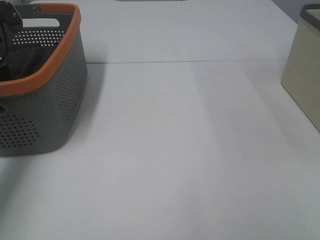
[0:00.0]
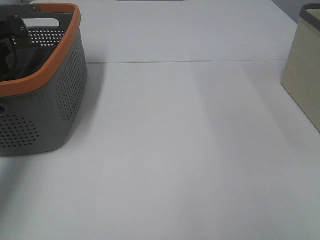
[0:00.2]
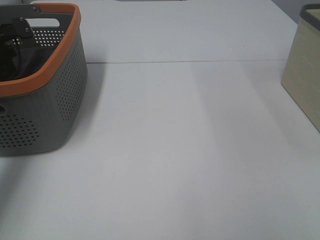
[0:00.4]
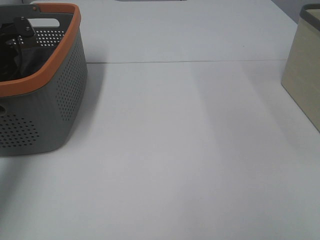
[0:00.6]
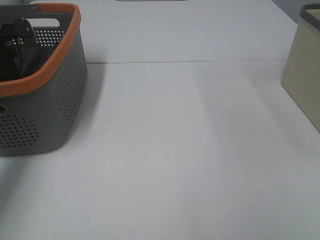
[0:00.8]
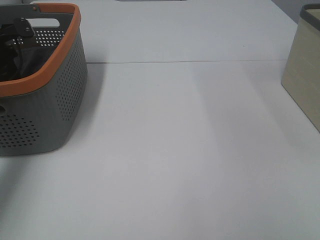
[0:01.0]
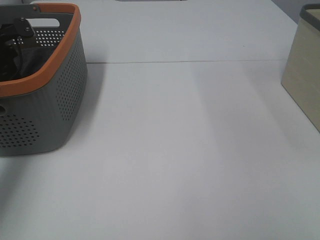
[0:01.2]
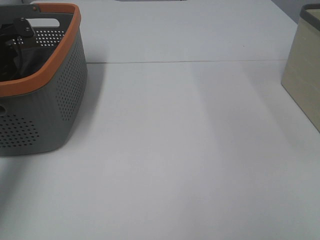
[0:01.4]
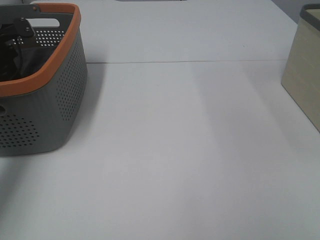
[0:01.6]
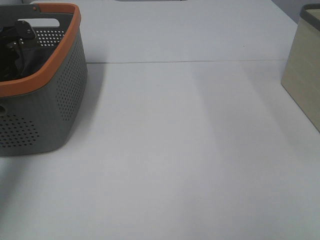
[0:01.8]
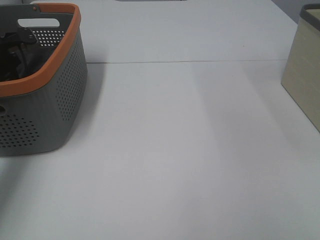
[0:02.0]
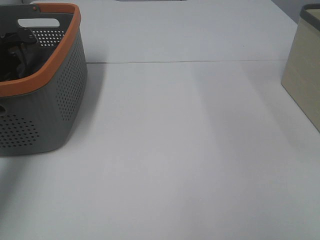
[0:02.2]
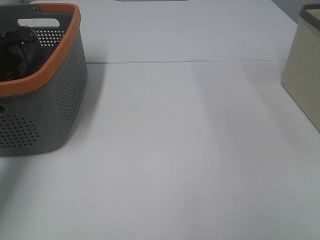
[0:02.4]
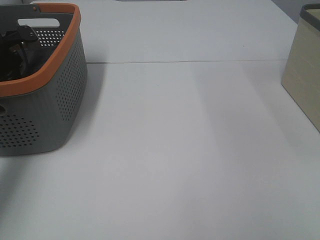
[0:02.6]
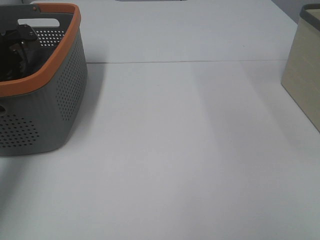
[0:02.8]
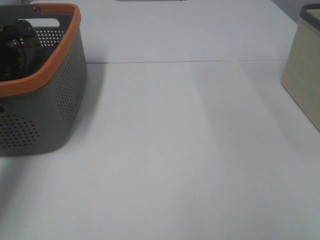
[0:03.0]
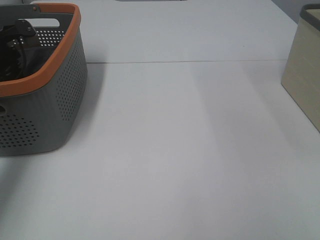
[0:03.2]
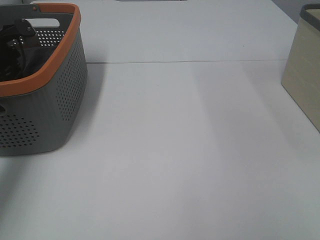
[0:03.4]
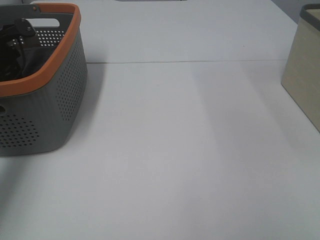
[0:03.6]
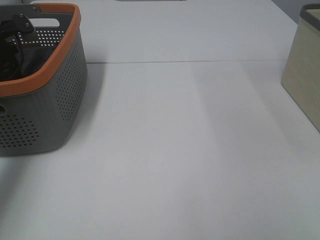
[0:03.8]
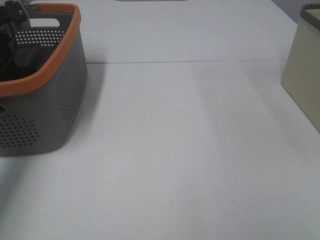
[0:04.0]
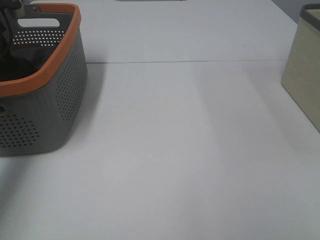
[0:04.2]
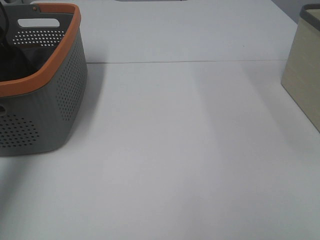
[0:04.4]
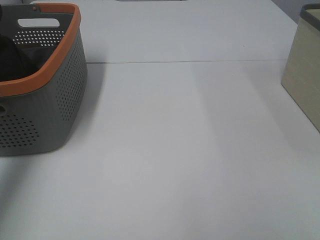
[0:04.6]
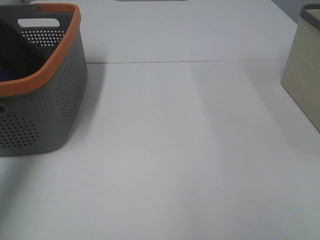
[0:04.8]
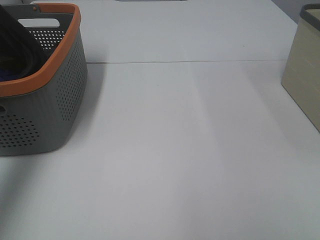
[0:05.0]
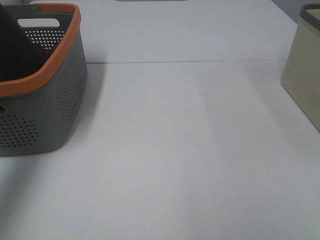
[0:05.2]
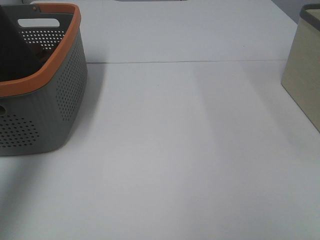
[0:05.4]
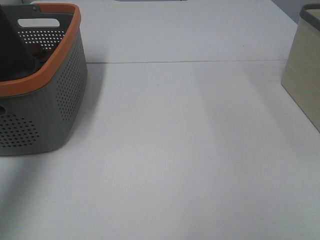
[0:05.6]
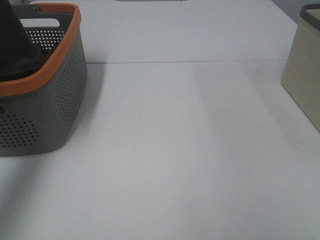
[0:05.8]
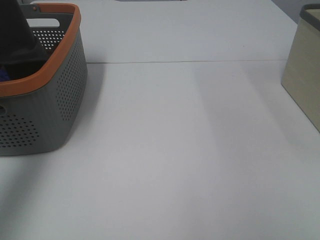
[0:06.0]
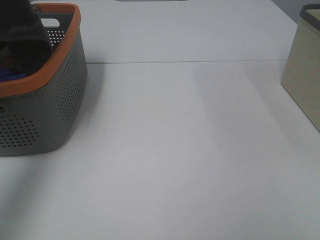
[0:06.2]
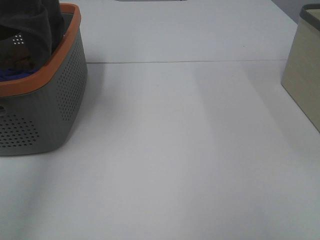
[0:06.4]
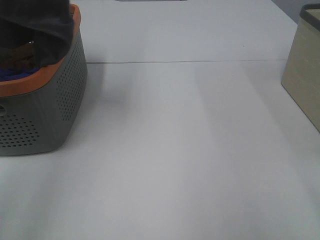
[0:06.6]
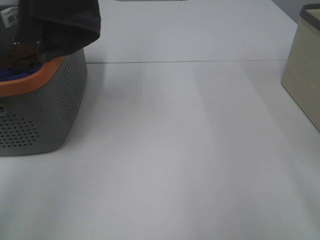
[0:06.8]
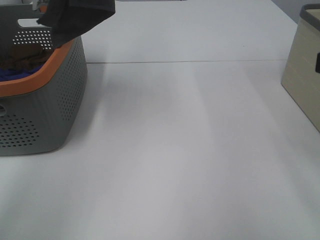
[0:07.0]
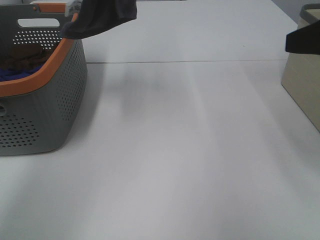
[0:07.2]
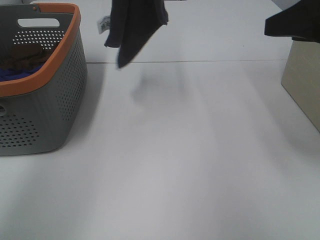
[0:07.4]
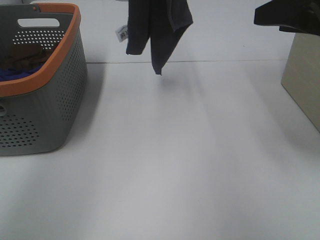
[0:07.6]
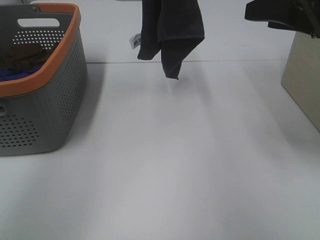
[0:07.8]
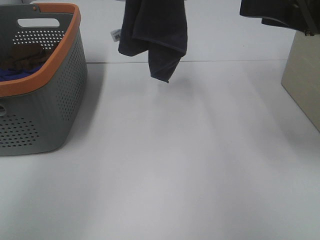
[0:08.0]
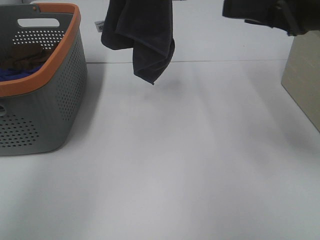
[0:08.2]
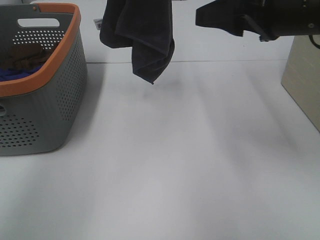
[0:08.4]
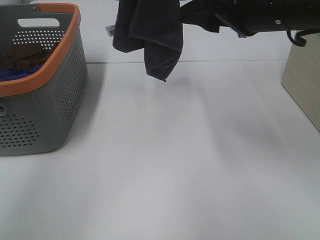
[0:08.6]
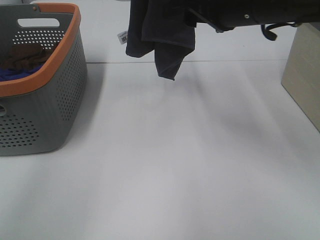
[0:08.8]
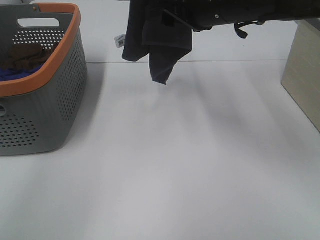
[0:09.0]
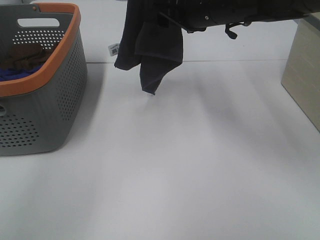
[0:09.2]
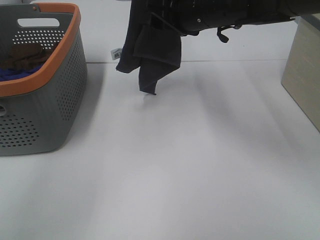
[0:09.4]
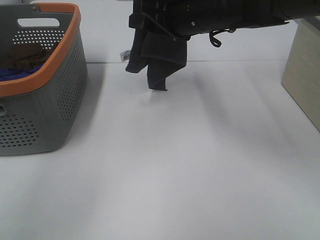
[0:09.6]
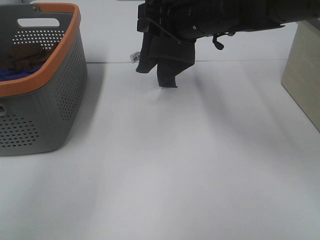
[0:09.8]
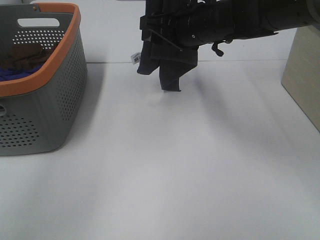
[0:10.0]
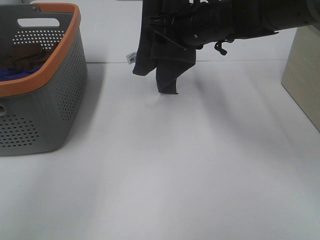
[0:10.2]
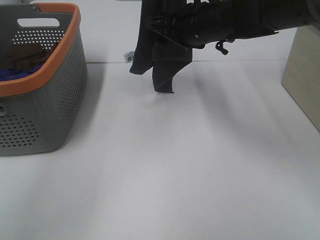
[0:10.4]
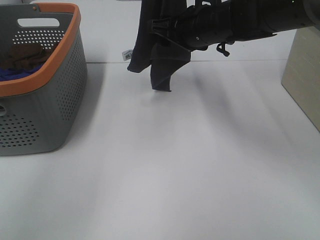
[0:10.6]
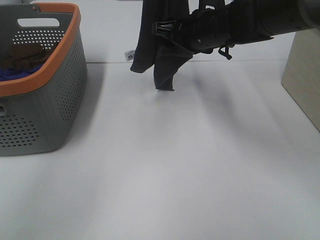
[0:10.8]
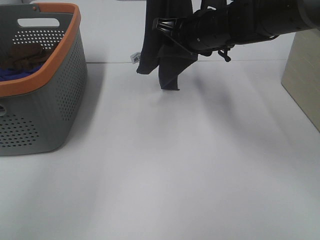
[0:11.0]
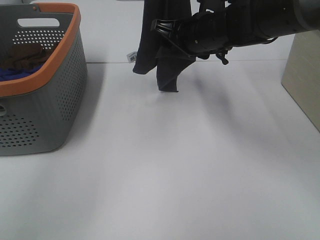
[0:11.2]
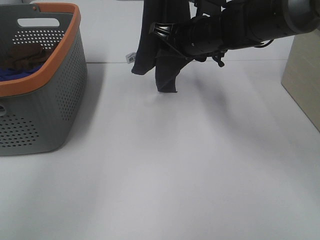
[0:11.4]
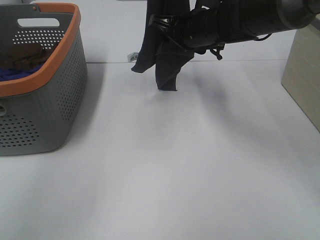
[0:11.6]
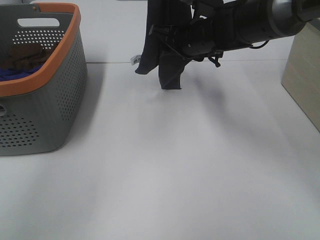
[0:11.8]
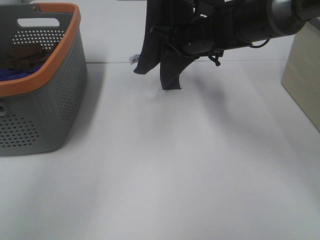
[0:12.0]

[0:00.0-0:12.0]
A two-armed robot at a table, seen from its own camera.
Task of the whole recording: Remove the towel and place it.
Step, 0:05.0 to 0:11.2: Right hand: grab a corner of the grey towel and straighten it.
0:04.4 to 0:06.0: The left gripper shifts approximately 30 cm upward and backward.
0:06.0 to 0:07.6: The left gripper heads to the right and forward, covering approximately 25 cm; the right gripper shifts some 25 cm forward.
0:07.6 to 0:09.0: The right gripper travels to the left and forward by approximately 15 cm.
0:09.0 to 0:10.4: The right gripper shifts some 5 cm downward.
0:10.4 to 0:12.0: The right gripper moves some 5 cm.

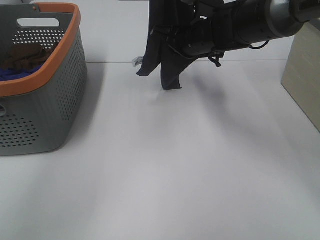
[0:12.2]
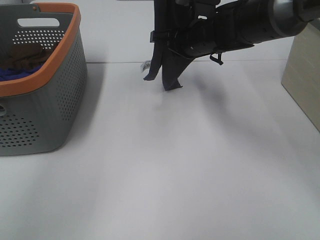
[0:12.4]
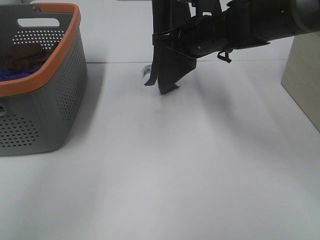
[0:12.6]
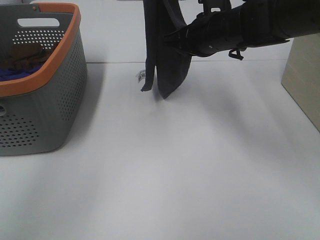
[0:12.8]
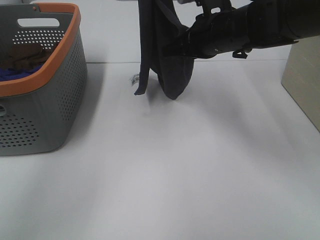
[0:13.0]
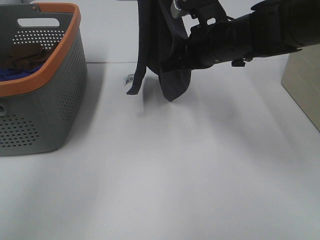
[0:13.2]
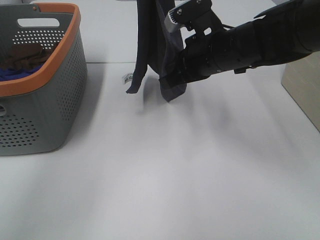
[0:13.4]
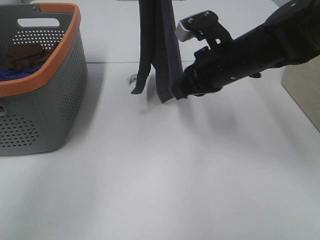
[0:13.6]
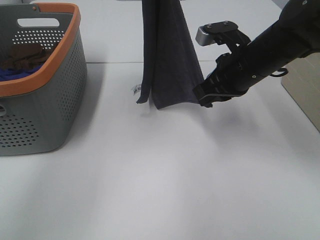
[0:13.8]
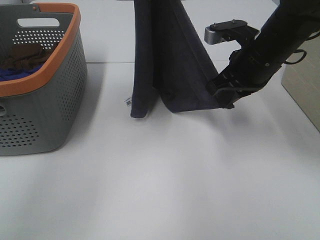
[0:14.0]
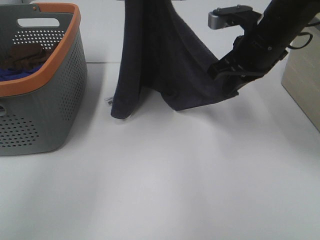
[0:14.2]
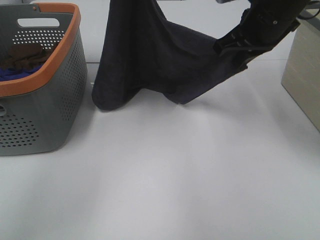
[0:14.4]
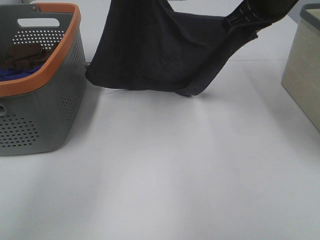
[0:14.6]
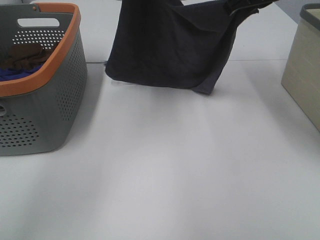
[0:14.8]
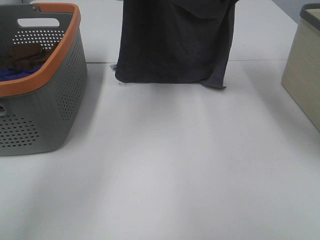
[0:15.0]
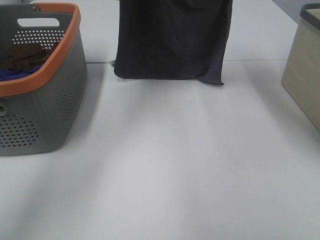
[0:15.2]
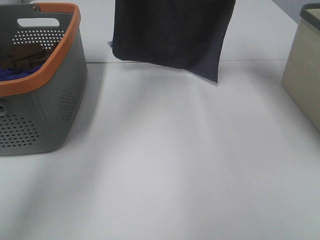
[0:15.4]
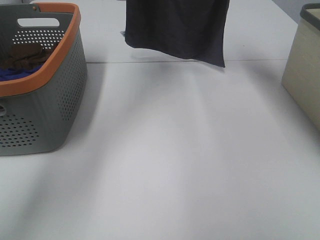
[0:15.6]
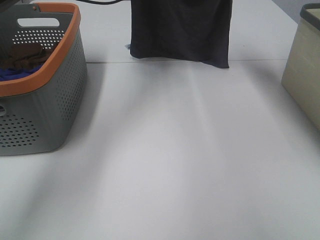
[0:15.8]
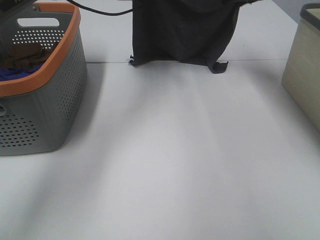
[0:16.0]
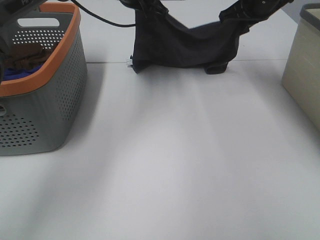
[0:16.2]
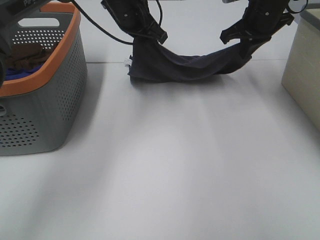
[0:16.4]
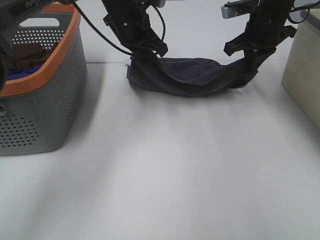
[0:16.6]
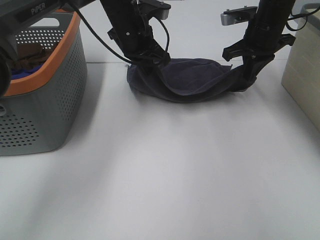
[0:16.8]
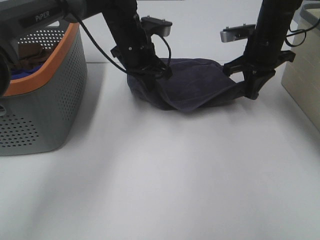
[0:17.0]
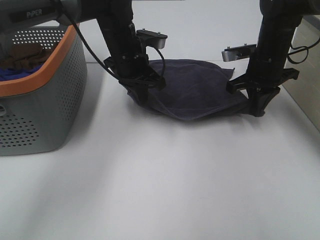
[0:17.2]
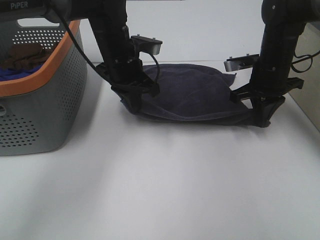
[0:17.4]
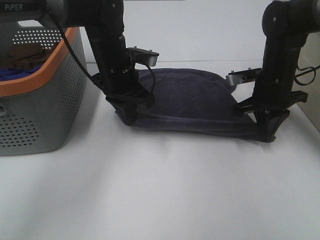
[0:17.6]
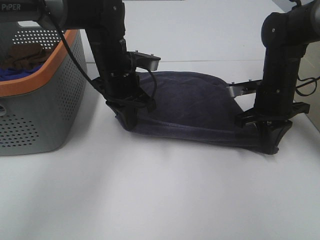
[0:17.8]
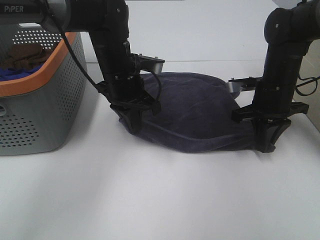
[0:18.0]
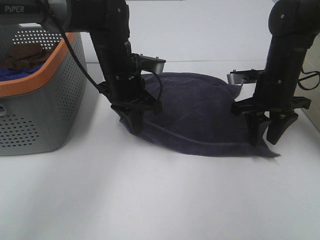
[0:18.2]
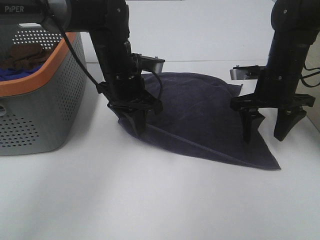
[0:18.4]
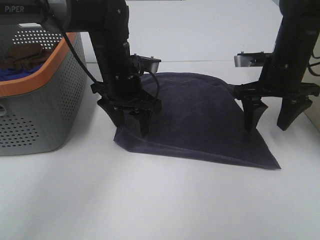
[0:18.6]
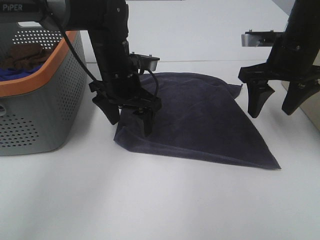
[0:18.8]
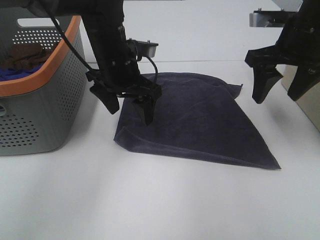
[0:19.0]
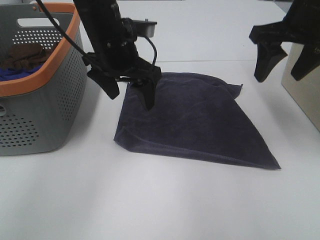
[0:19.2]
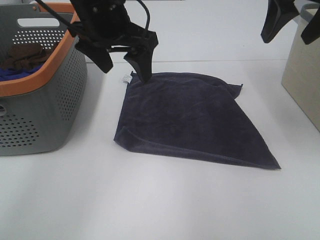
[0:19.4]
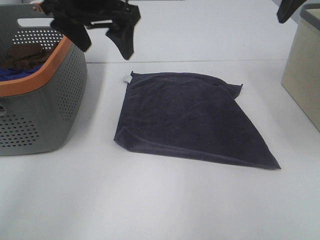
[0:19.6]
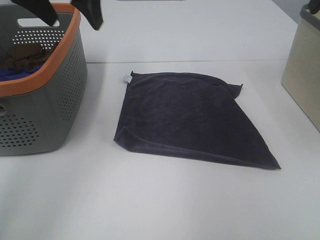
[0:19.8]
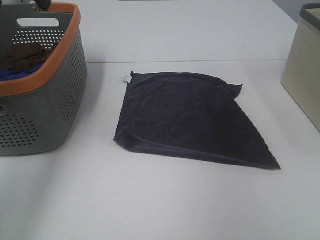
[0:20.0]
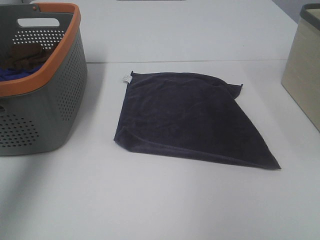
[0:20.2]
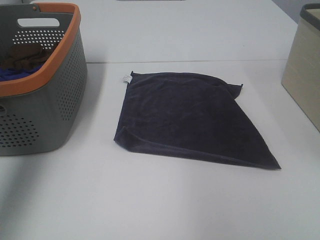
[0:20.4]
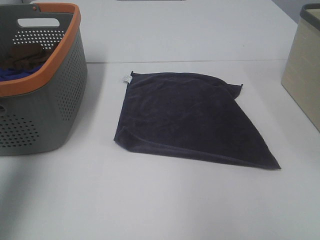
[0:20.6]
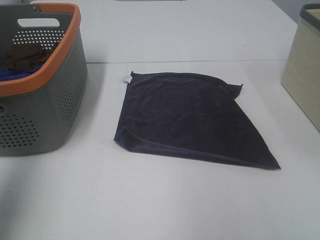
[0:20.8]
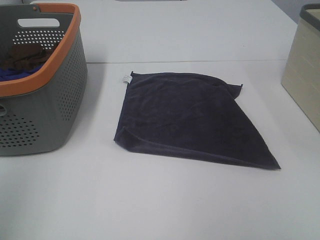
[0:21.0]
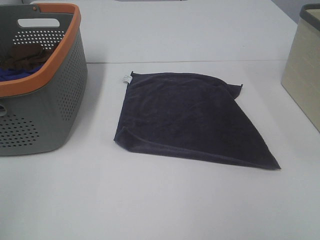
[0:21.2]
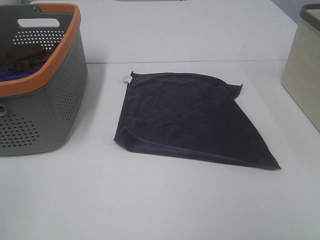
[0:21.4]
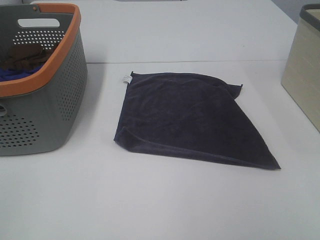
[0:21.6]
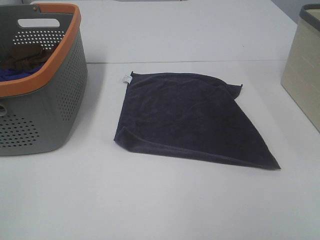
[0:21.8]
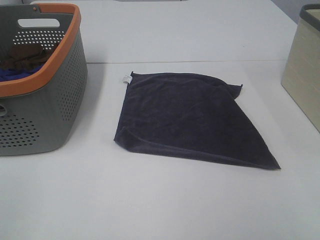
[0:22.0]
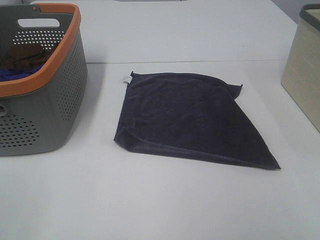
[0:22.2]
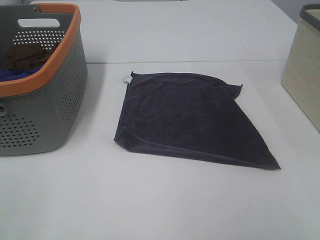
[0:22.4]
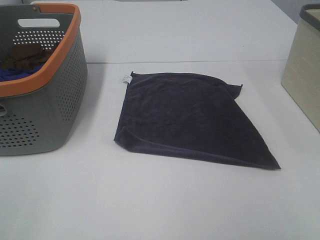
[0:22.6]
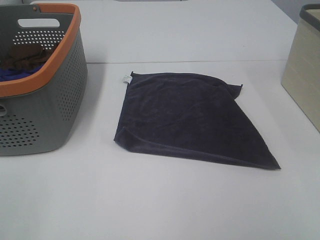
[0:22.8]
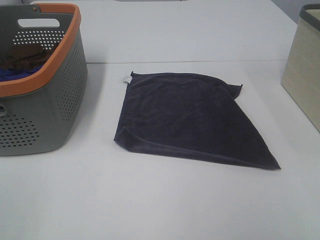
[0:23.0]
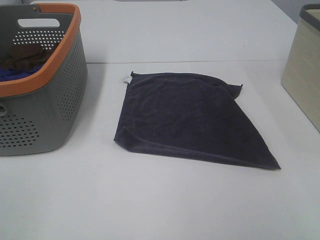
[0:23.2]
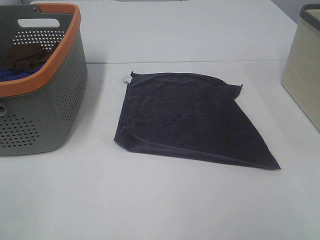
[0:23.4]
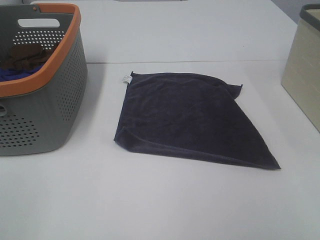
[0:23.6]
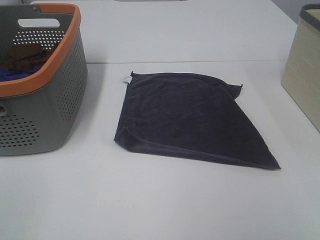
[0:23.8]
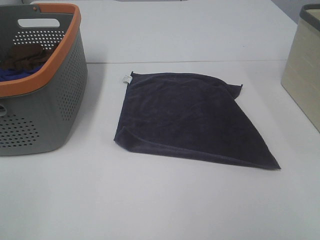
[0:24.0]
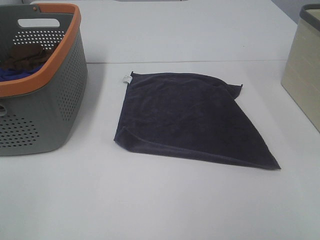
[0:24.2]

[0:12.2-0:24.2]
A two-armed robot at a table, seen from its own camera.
Task of the whole recording: Remove the towel and place it.
Step, 0:12.2 to 0:13.4: Right hand: spread the grey towel flat on the table.
Step, 0:12.2 to 0:13.8: Left hand: spread the grey towel flat on the table.
0:12.2 to 0:13.8: The right gripper travels backward and to the right by some 10 cm.
0:13.8 to 0:15.2: The right gripper goes roughly 15 cm upward and forward. Meanwhile the left gripper goes approximately 10 cm forward and downward.
0:15.2 to 0:16.6: The grippers both shift downward by approximately 10 cm.
0:16.6 to 0:18.2: Both grippers move backward and downward, about 10 cm. The right gripper opens.
0:18.2 to 0:19.8: The right gripper goes approximately 25 cm upward; the left gripper shifts about 25 cm upward and to the left, and opens.
0:19.8 to 0:21.2: The left gripper shifts some 40 cm backward and to the left.
0:22.6 to 0:24.2: Both grippers stay put.
